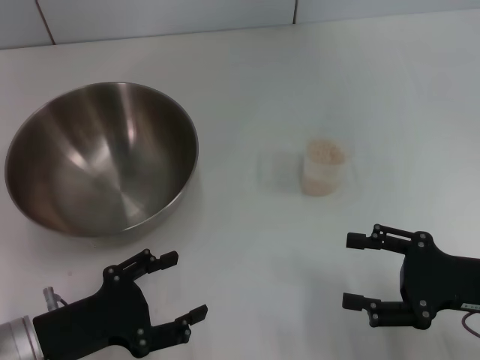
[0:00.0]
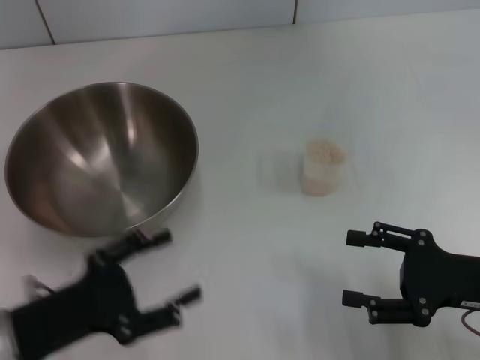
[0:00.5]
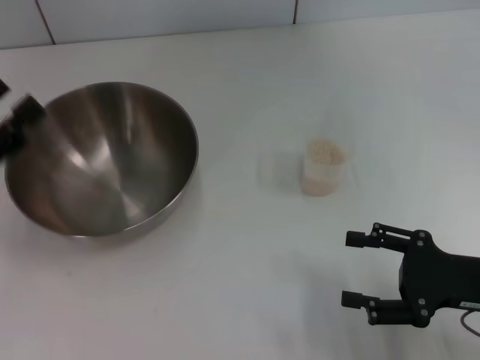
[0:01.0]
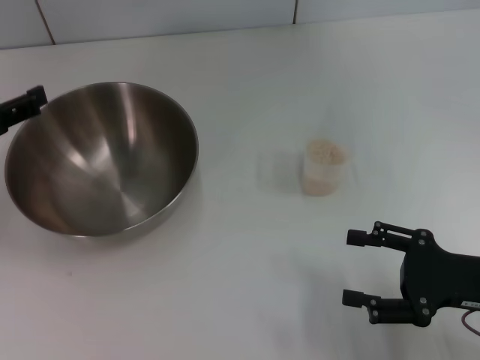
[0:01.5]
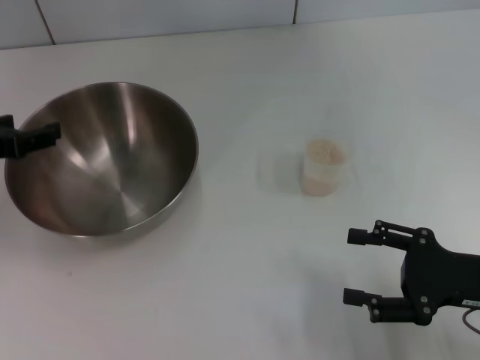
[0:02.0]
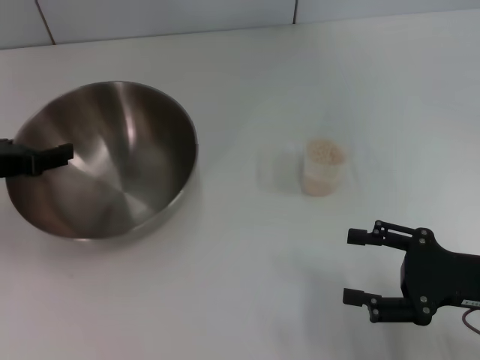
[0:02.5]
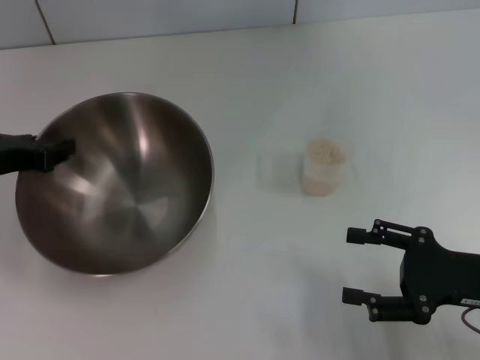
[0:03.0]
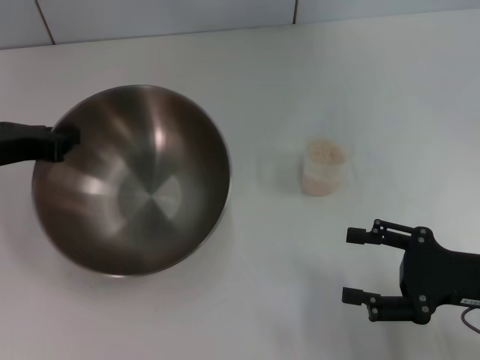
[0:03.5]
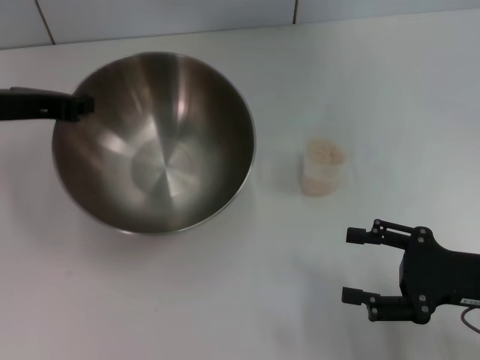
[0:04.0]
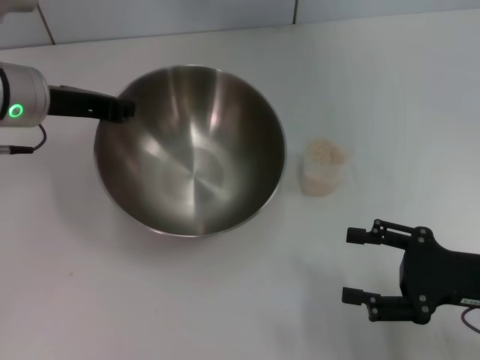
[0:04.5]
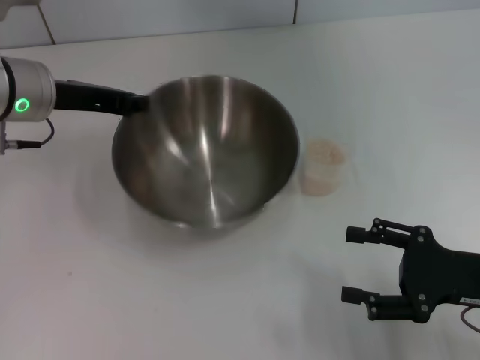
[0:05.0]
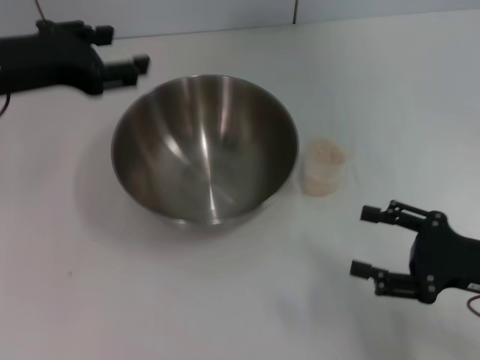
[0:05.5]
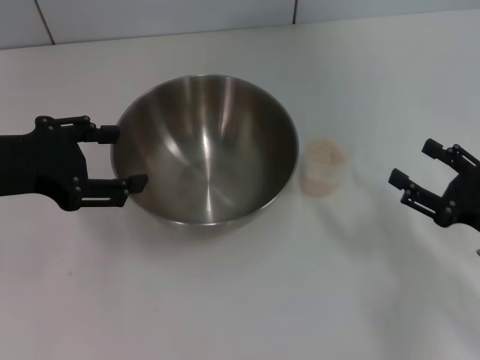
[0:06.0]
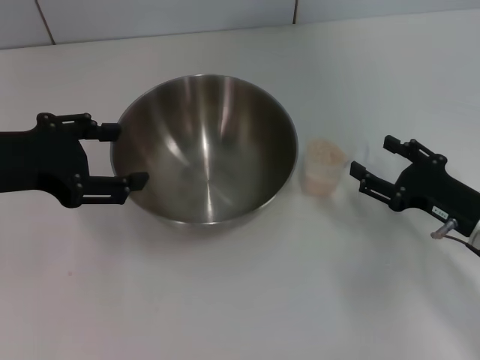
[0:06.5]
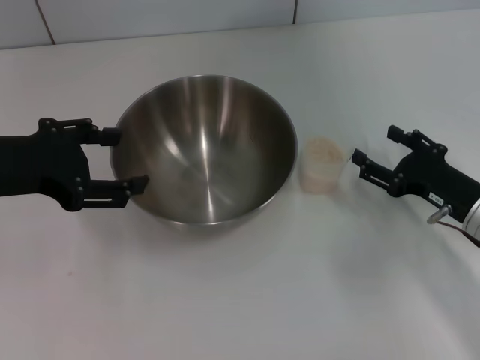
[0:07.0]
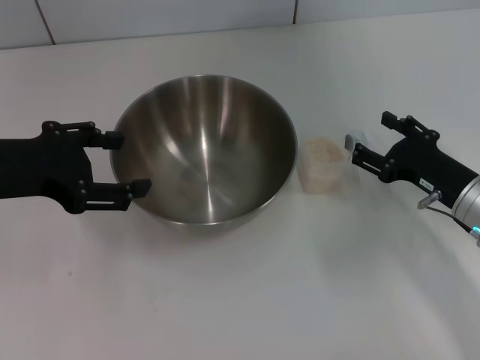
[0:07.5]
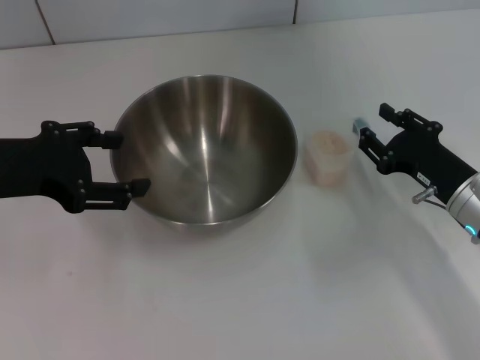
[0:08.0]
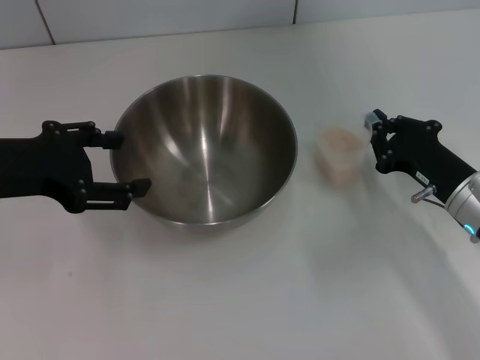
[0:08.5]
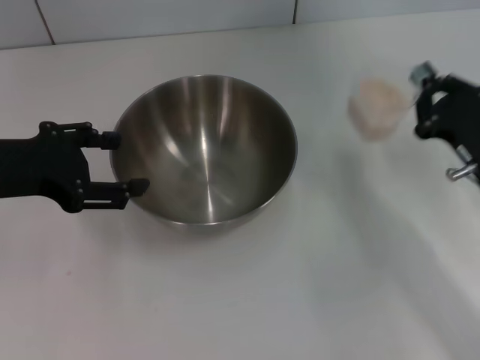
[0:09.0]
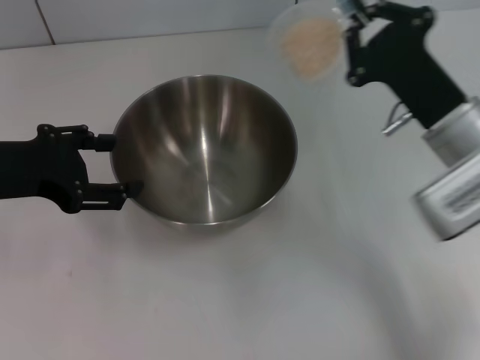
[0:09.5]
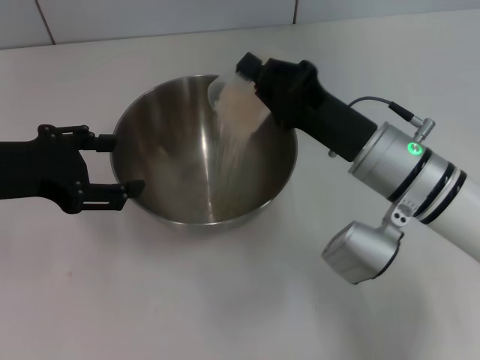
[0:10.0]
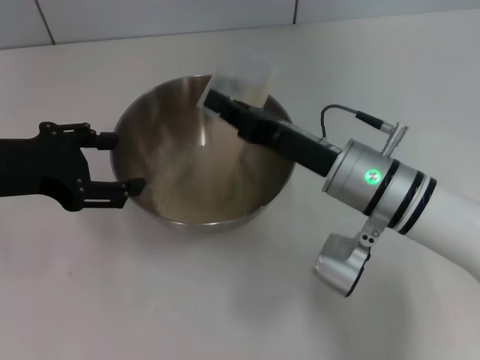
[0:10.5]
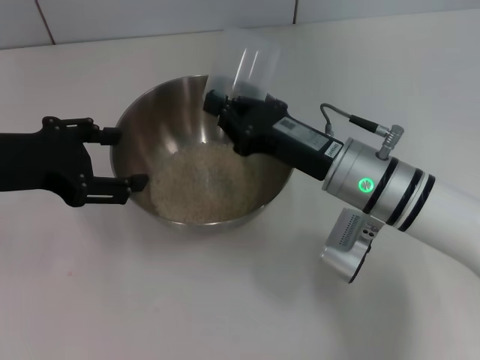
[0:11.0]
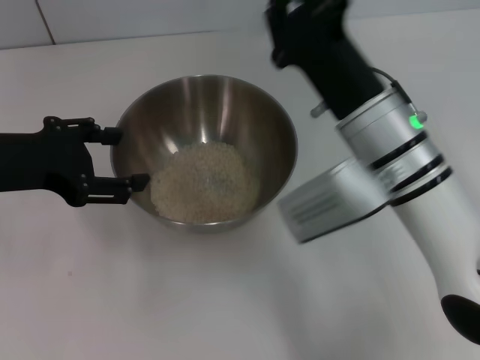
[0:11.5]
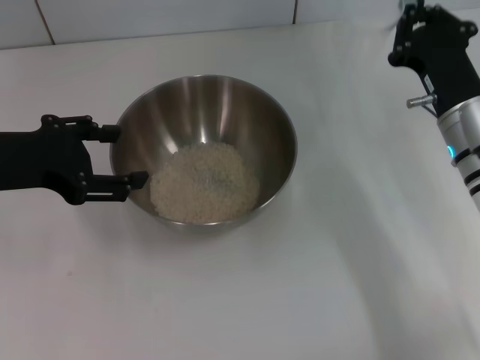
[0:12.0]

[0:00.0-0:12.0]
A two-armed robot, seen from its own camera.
Task of the whole recording: Place the bowl in the middle of the table with one hand and pour the rice from the grain cup into it with the other hand.
Step, 0:00.0 to 0:03.0: Pick up the bowl with the left gripper.
Step, 0:03.5 to 0:05.0: Place the bowl in the center of view with the left gripper.
Step, 0:05.5 to 0:09.0: Pick up the cup with rice in it with the right gripper.
Step, 0:09.5 to 0:11.5: Pour the rice from the cup into the bowl with the right gripper.
0:00.0 to 0:02.0: The left gripper travels forward, upward and to the left by approximately 20 cm.
0:02.0 to 0:04.0: The left gripper travels forward by some 5 cm, and closes up.
0:04.0 to 0:06.0: The left gripper shifts approximately 10 cm backward, and opens its fingers.
0:06.0 to 0:08.0: The right gripper is displaced forward and to the left by roughly 10 cm.
0:08.0 to 0:10.0: The right gripper goes roughly 15 cm to the left and upward, and closes its fingers.
0:10.0 to 0:12.0: The right gripper travels to the right by about 5 cm.

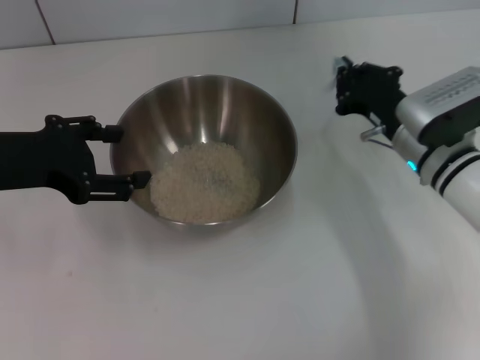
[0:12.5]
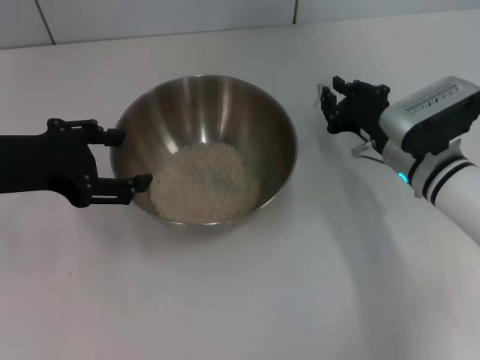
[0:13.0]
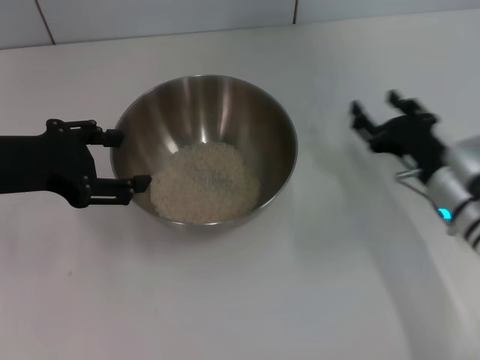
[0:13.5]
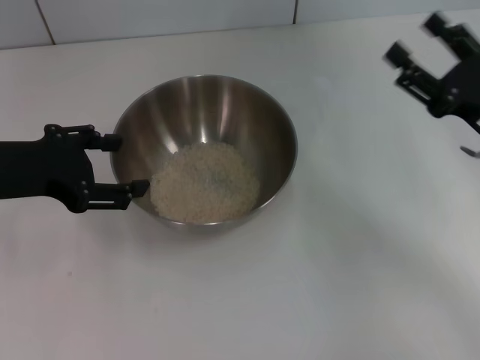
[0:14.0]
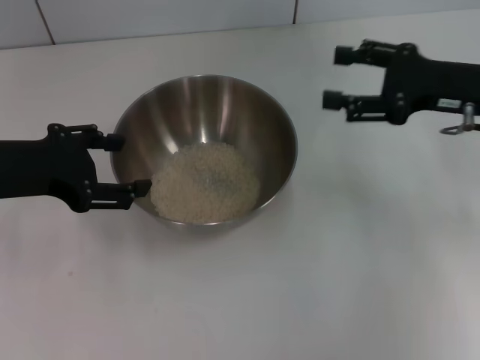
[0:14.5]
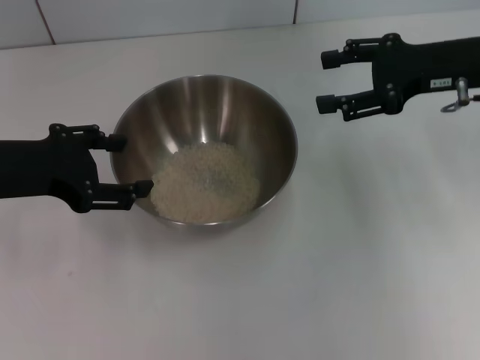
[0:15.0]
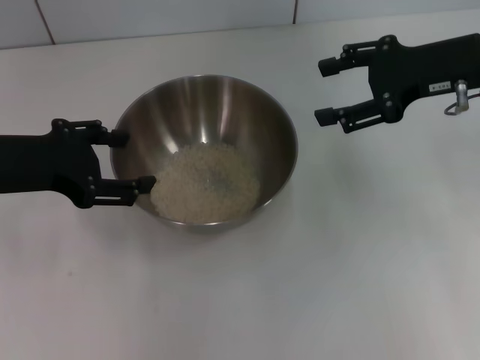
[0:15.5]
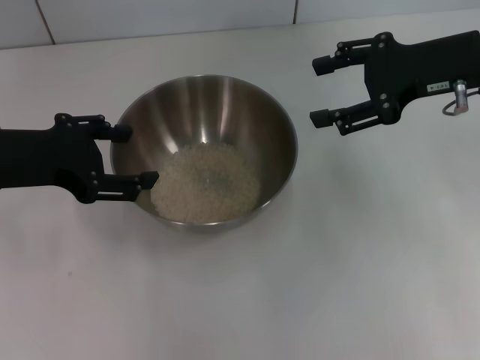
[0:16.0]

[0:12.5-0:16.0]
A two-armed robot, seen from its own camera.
Task of the whole recording: Place the bowl in the middle of the table with one hand and pour the rice from the grain cup into it with the other hand.
Step, 0:12.5 to 0:13.5: Place the cup on the table with the right gripper.
0:12.5 to 0:14.5: The right gripper travels upward and to the right by approximately 10 cm, and opens up.
0:14.5 to 0:16.0: The right gripper shifts roughly 5 cm upward.
